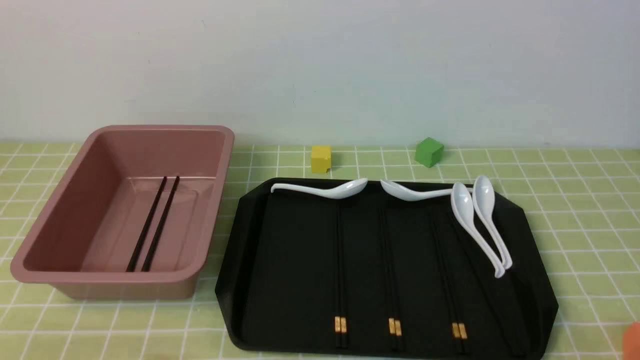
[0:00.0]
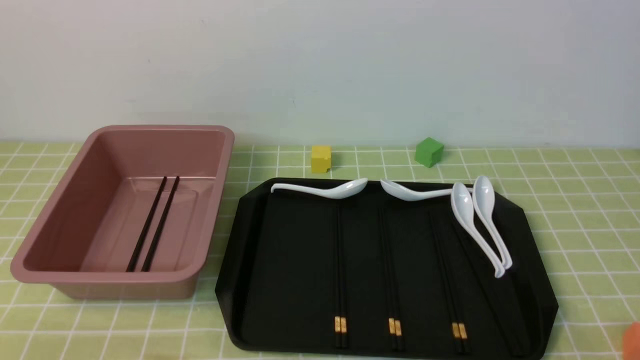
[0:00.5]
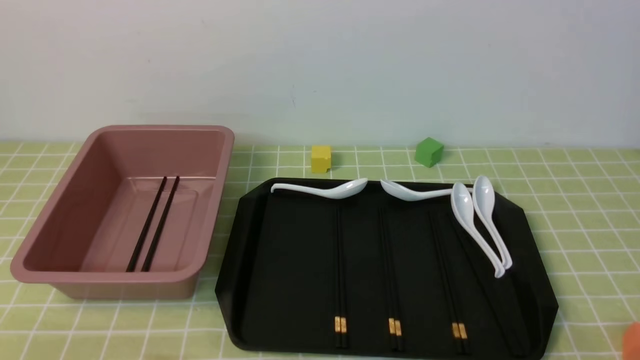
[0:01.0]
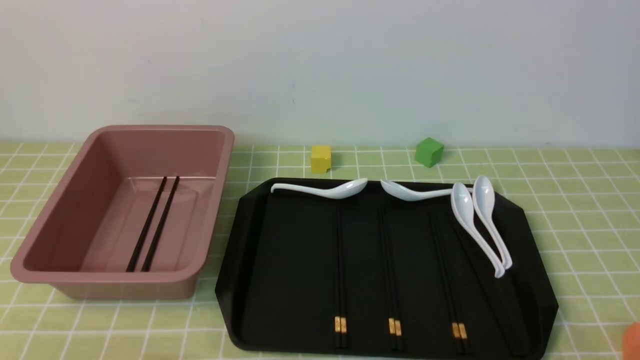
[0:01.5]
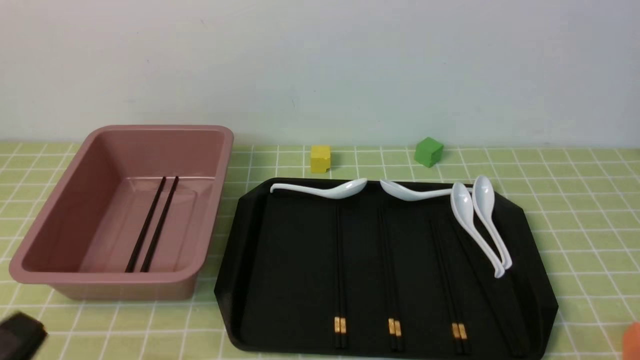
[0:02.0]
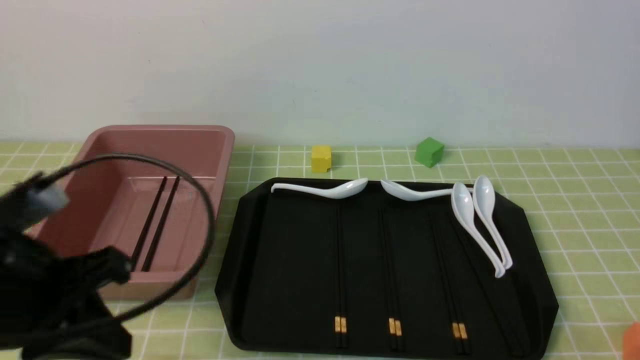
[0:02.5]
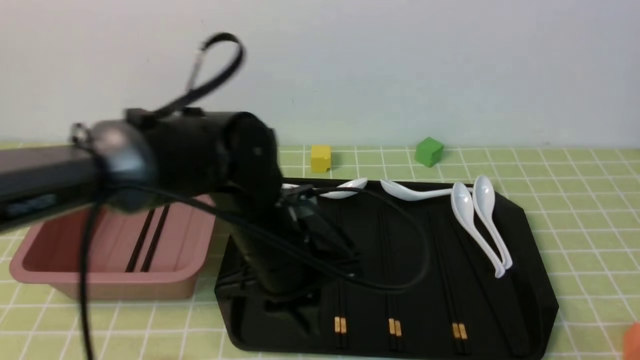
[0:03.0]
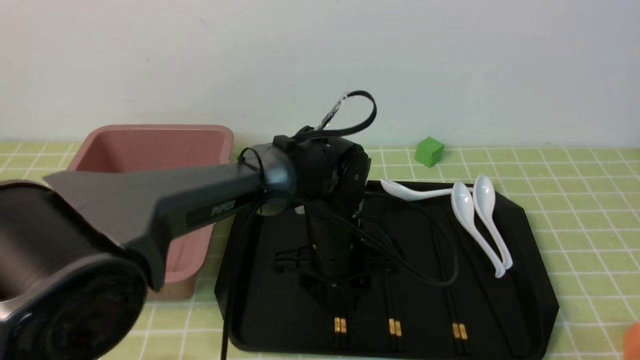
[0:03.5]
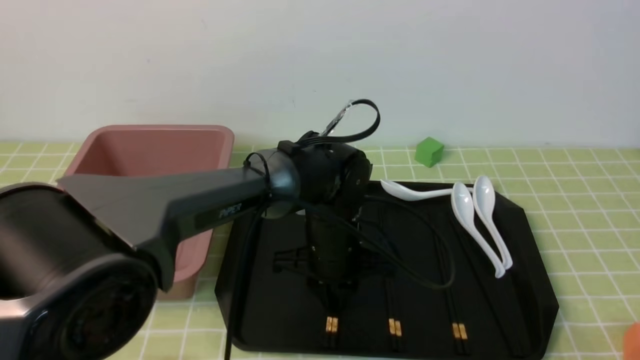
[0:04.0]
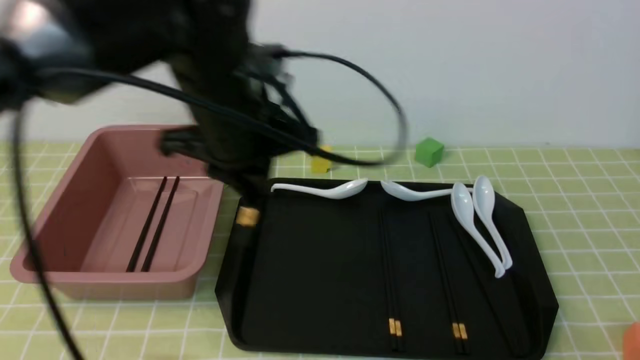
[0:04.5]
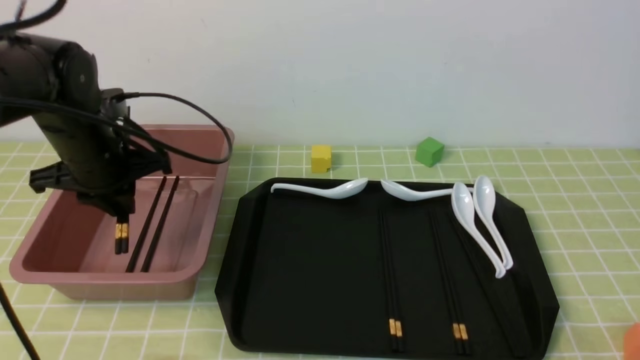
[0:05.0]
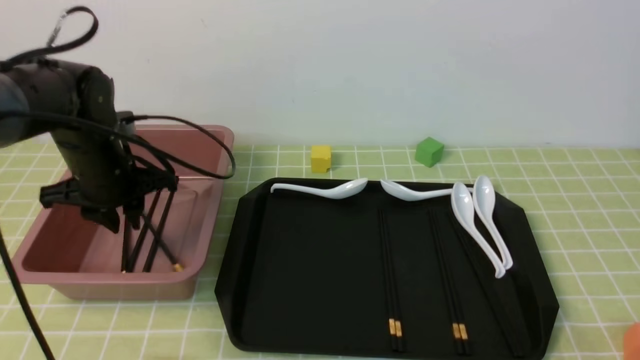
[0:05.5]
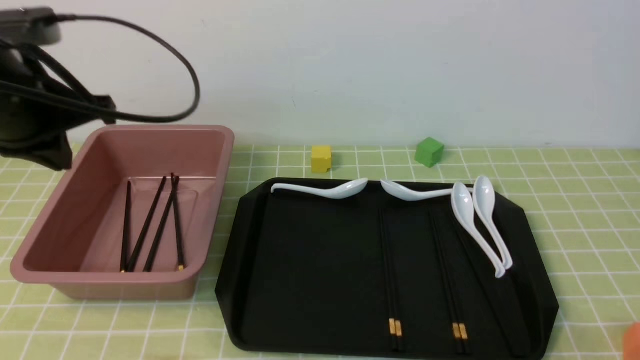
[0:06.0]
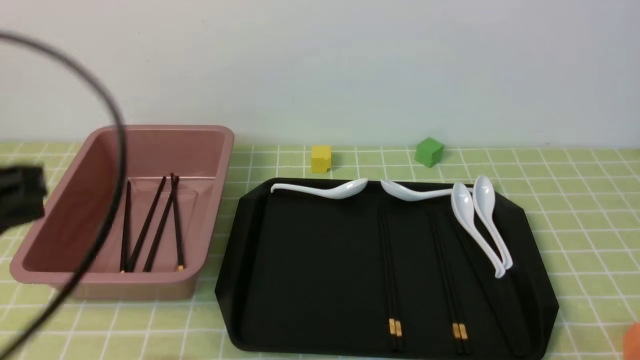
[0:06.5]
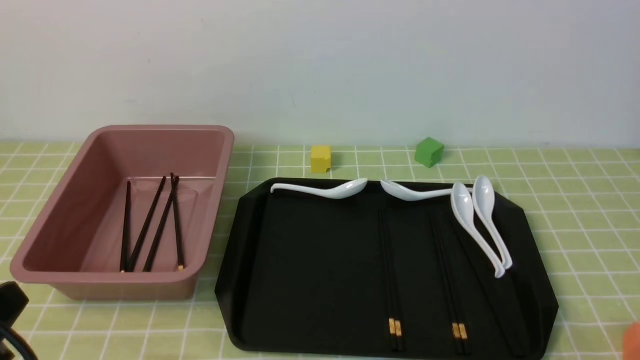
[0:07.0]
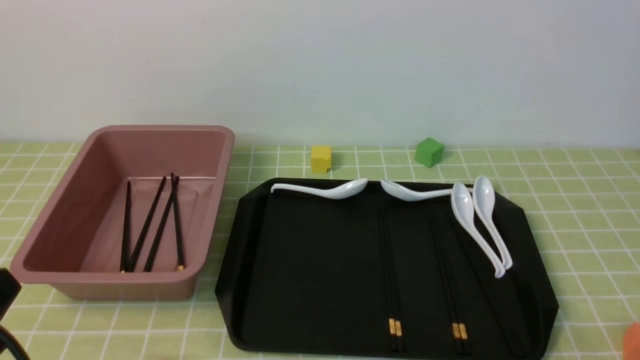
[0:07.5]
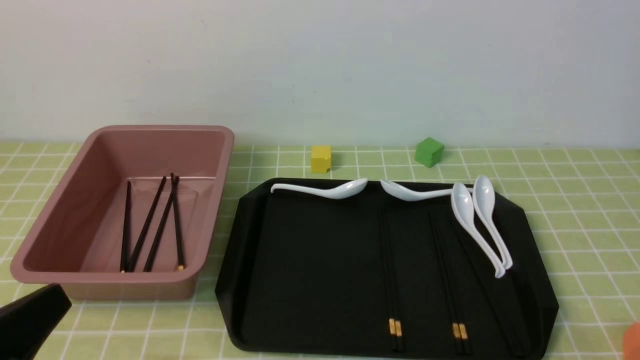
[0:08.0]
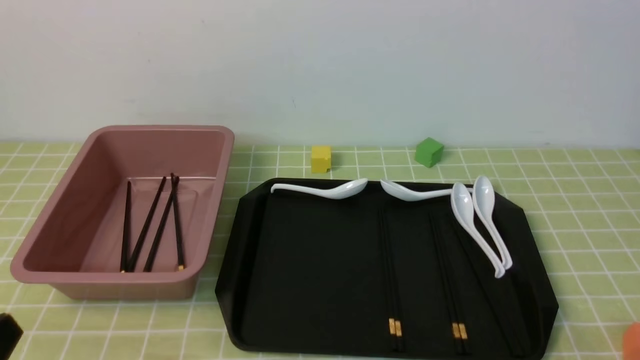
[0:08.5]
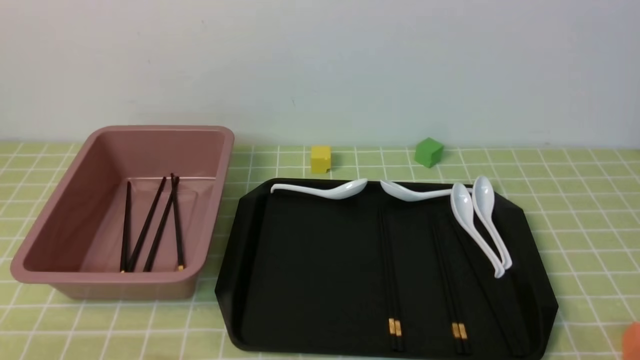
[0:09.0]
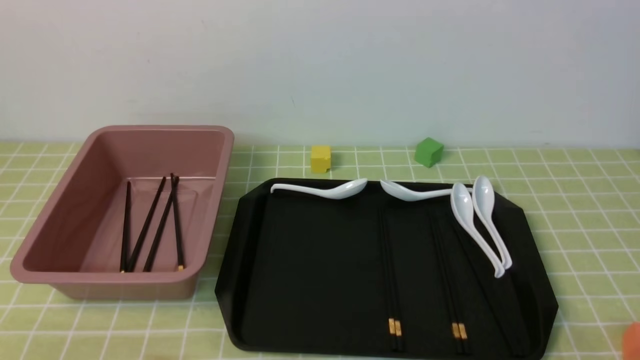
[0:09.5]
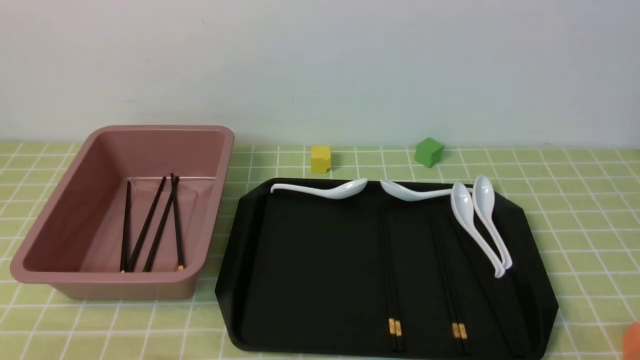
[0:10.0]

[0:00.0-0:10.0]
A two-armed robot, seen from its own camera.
Step, 0:00.0 to 0:04.0: use the left arm to grab a pair of chopsticks.
Step, 0:04.5 to 0:05.5: use the left arm to put the chopsticks into the lunch box.
0:00.0 to 0:02.0: The left gripper moves upward, approximately 10 cm.
0:02.0 to 0:04.0: The left gripper goes some 40 cm forward and to the right, and opens up.
0:04.0 to 0:06.0: The left gripper heads to the left and upward, covering approximately 30 cm, and closes up.
0:06.0 to 0:08.0: The left gripper shifts some 25 cm backward and downward.
0:08.0 to 0:10.0: The left gripper moves downward, about 10 cm.
